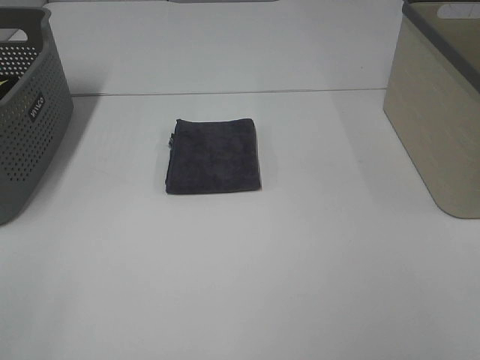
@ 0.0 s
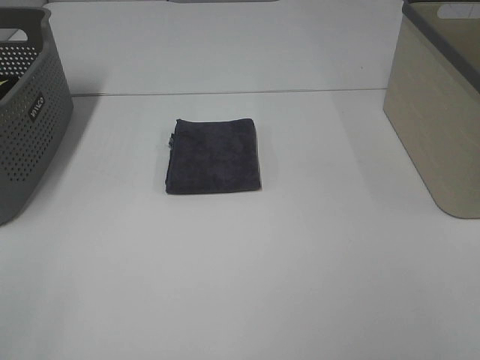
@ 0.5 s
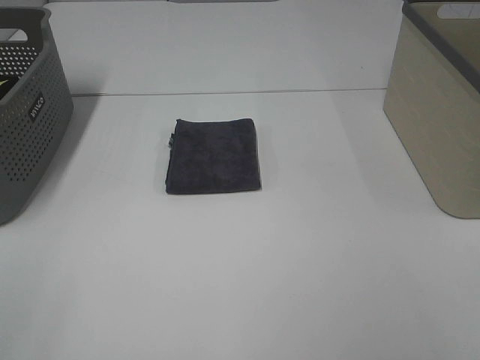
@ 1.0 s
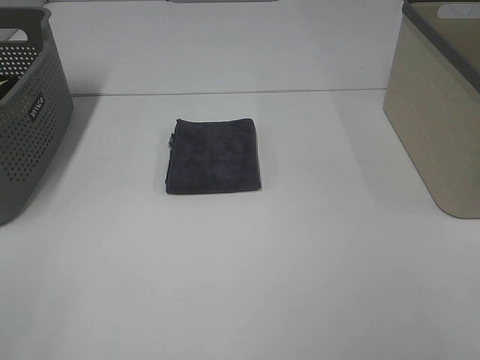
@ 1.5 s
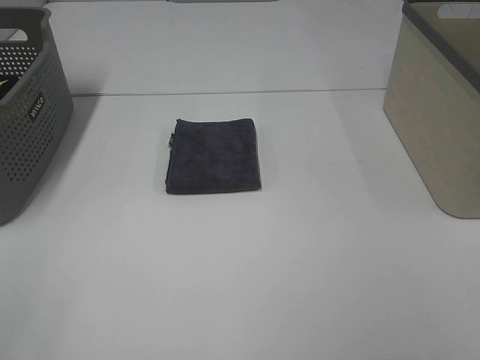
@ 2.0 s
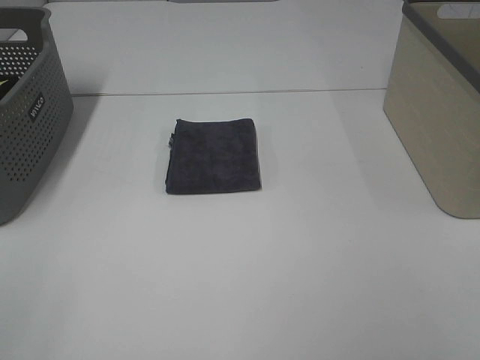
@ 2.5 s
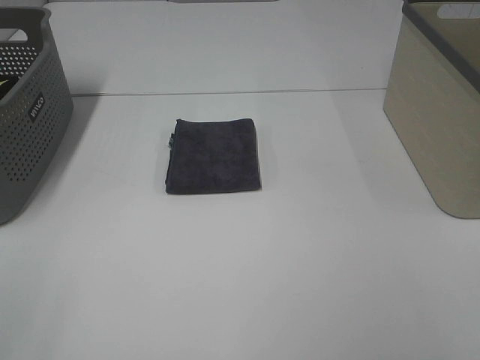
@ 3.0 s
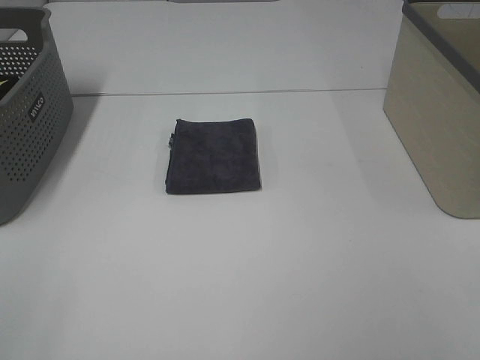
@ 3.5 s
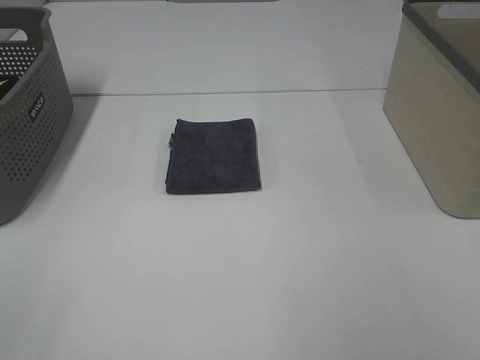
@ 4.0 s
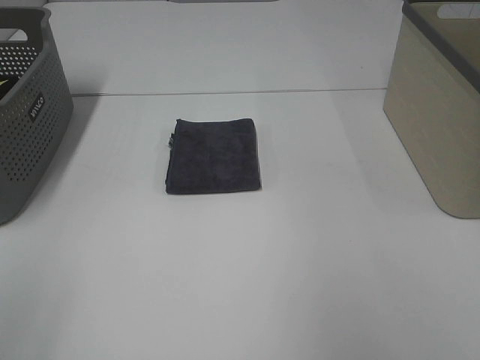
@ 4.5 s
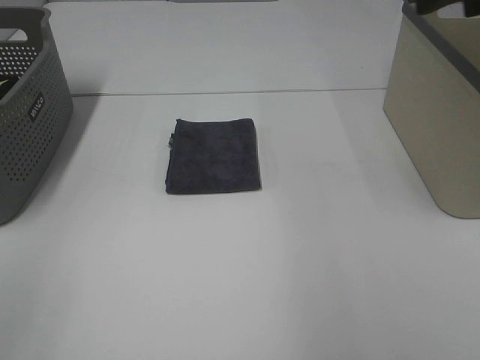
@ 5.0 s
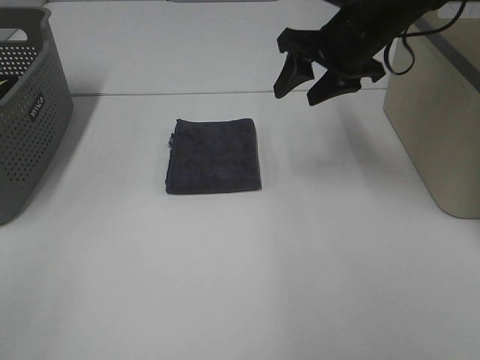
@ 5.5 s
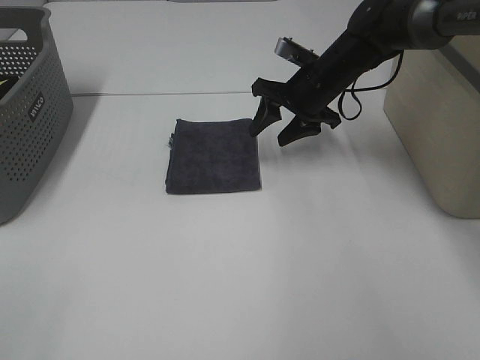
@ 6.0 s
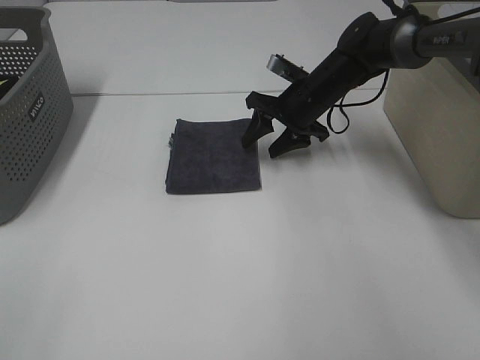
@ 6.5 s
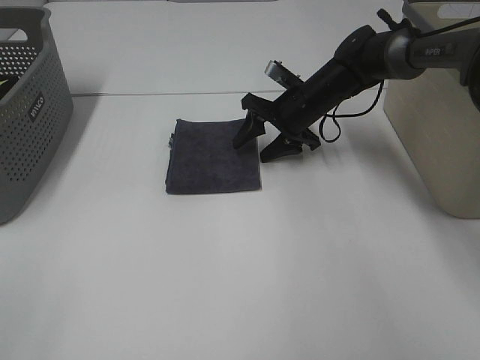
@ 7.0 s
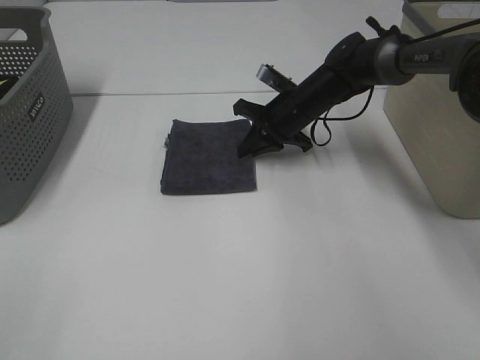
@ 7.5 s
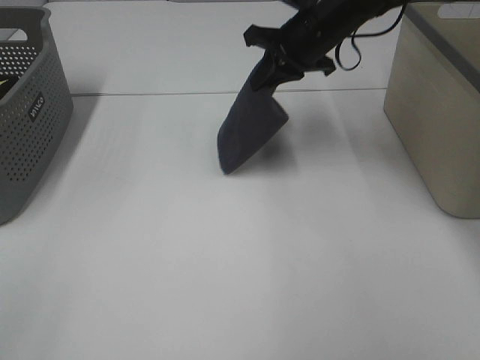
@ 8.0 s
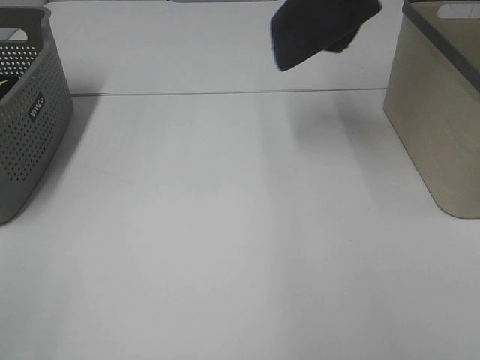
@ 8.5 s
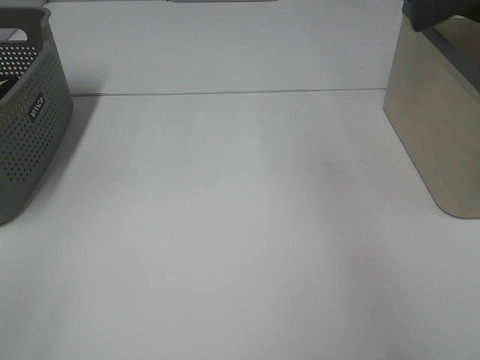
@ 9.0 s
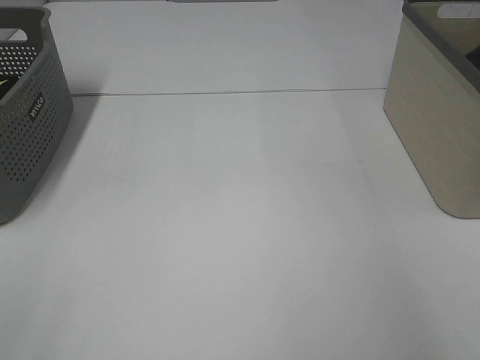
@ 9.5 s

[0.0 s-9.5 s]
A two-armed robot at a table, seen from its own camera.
Step, 0.0 to 7.0 s: Right hand: grab the folded grey towel.
0.0 to 2.0 s: Neither gripper changes place.
4.0 to 5.5 s: The right gripper moves forward, approximately 40 cm.
5.5 to 7.5 s: The right gripper travels downward and forward by about 15 cm, and closes.
7.5 to 9.5 s: The right gripper heads to the right and upward, covering roughly 35 cm.

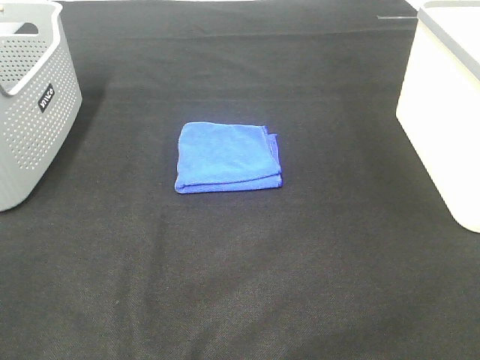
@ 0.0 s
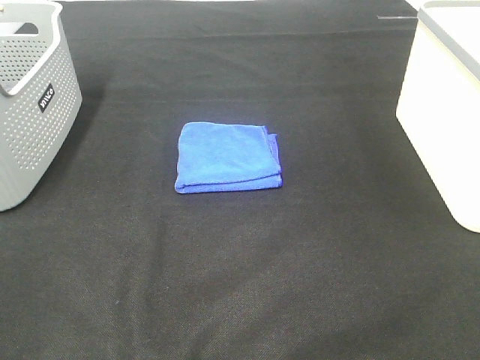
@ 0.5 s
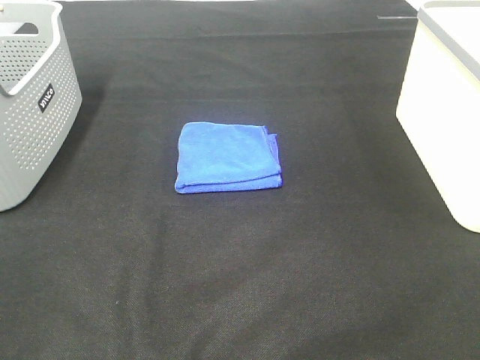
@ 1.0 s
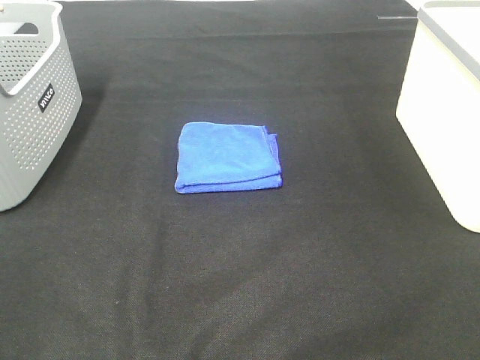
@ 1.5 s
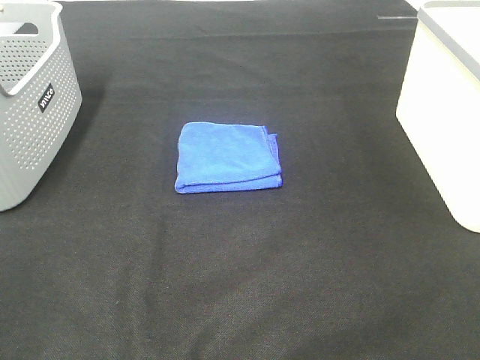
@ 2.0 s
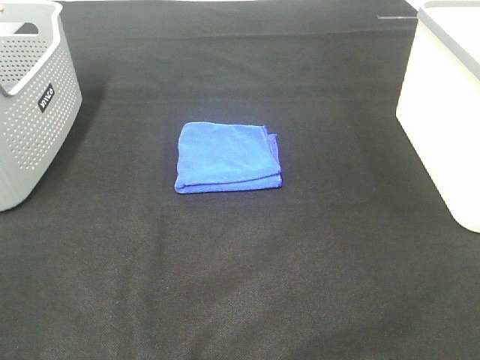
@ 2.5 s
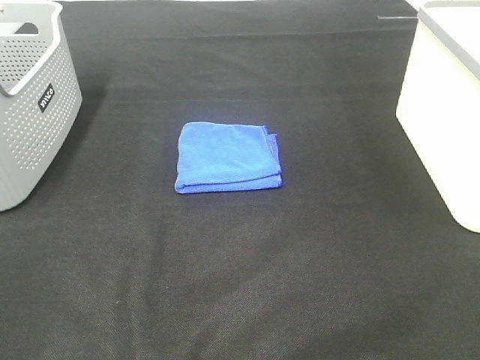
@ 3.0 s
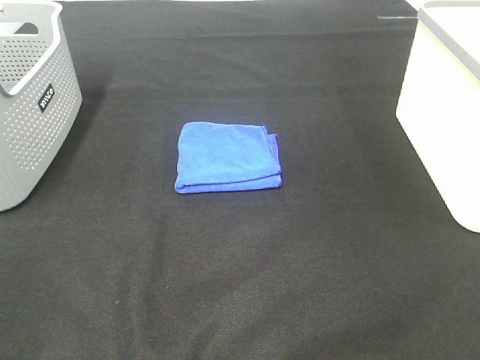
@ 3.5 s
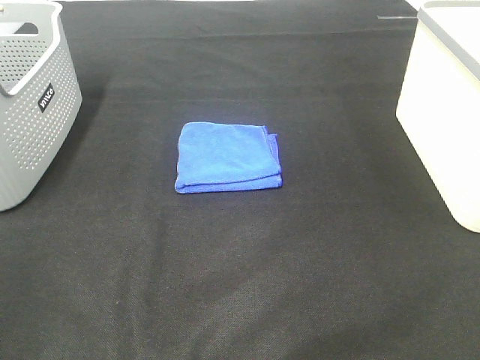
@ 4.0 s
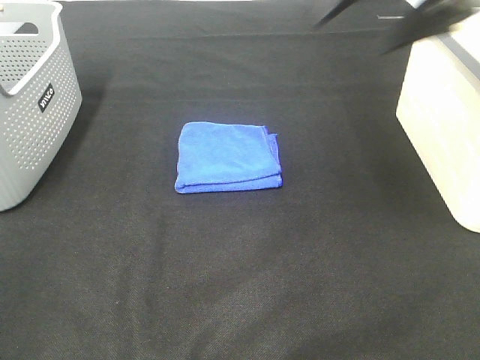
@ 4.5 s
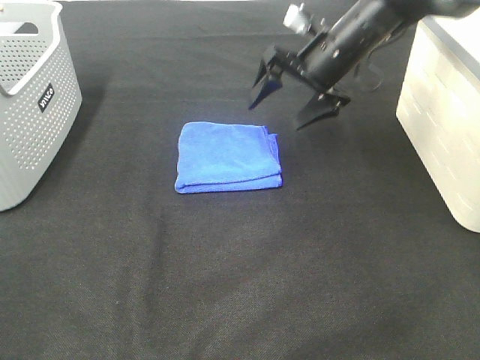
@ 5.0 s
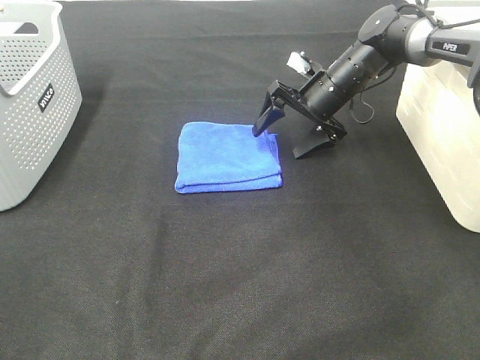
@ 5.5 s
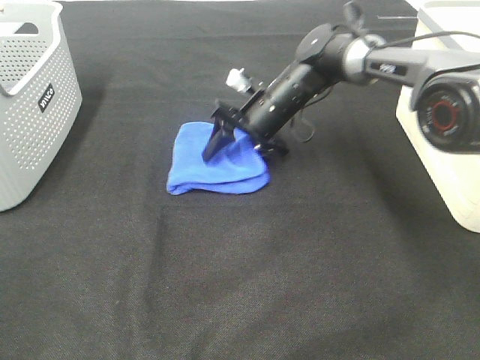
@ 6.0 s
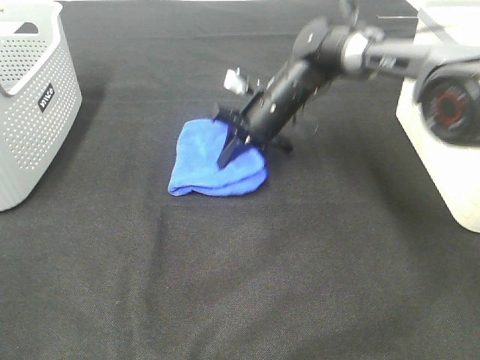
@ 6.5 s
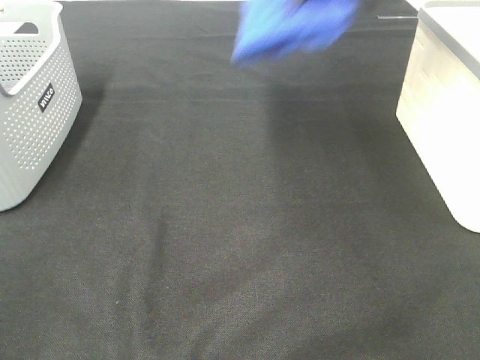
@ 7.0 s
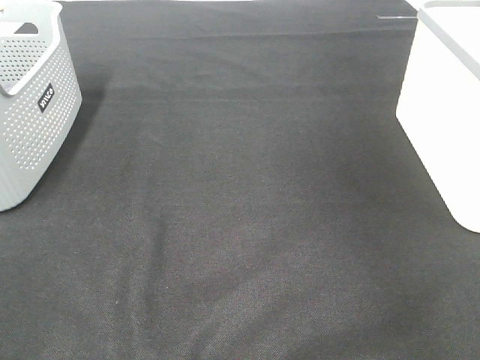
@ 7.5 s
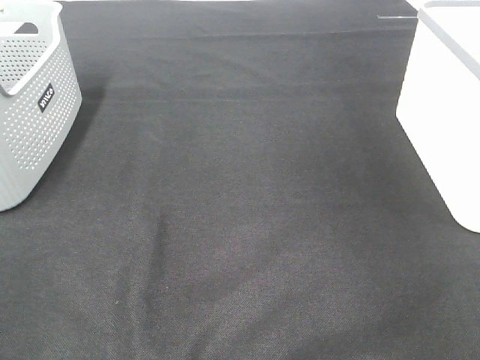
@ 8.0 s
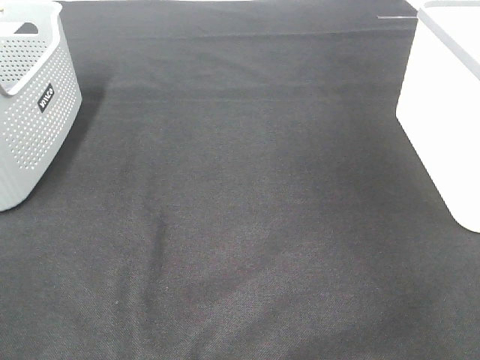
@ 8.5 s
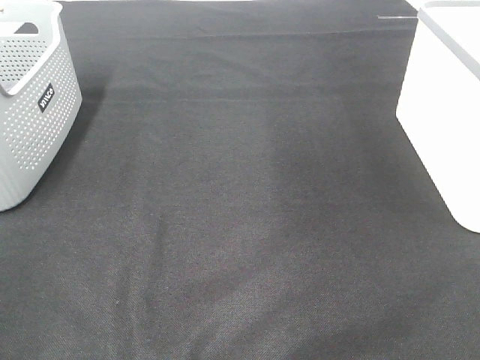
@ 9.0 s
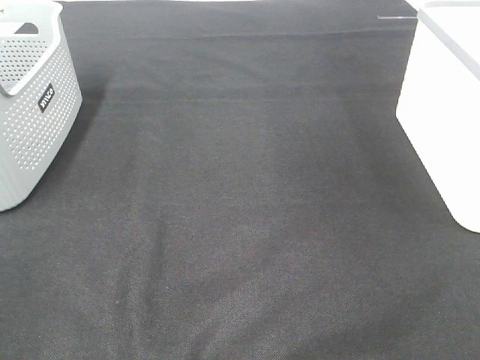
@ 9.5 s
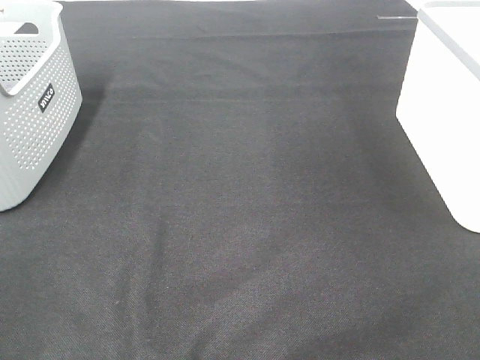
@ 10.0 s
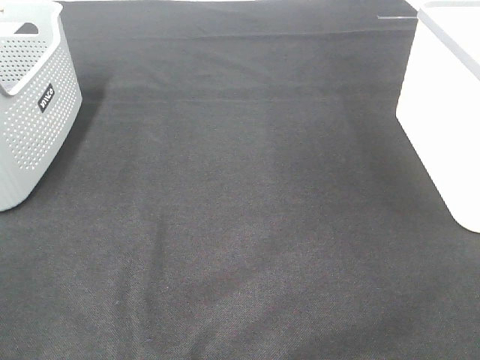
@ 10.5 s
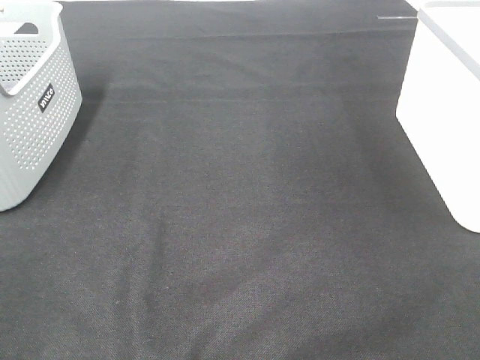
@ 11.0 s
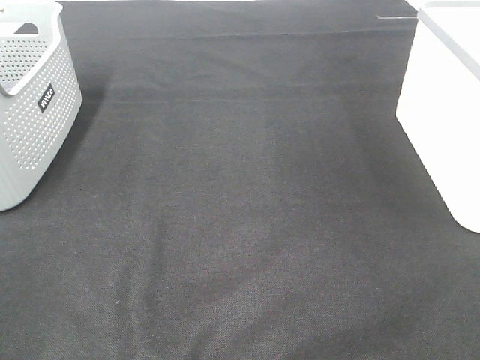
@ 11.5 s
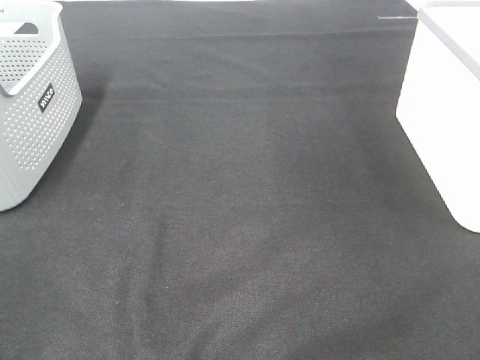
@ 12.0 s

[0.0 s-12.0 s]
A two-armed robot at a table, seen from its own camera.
Step, 0.0 to 6.0 s: Right hand: grab the folded blue towel.
Step, 6.5 to 8.0 s: Right hand: place the blue towel in right basket.
0.0 to 2.0 s: The two grippers keep their place.
4.0 to 6.0 s: The right gripper travels downward, forward and to the left by about 50 cm, and closes up.
6.0 to 8.0 s: The right gripper goes approximately 40 cm to the right and upward, and closes, then opens again.
10.0 to 12.0 s: Both grippers stay about where they are.

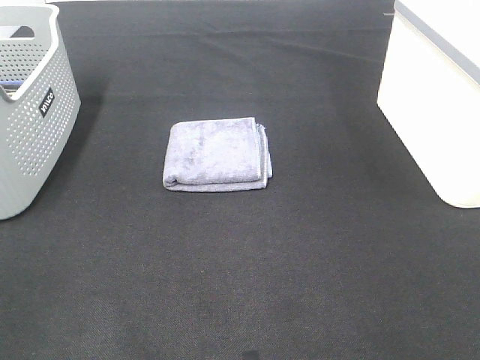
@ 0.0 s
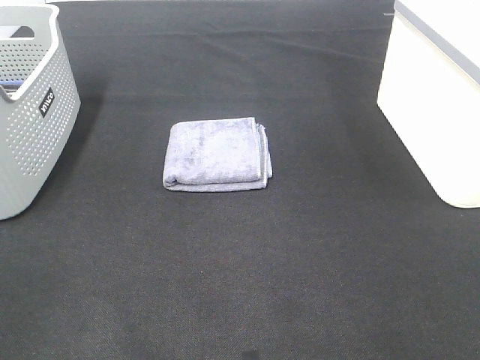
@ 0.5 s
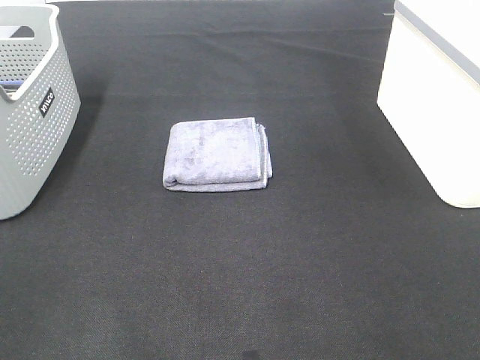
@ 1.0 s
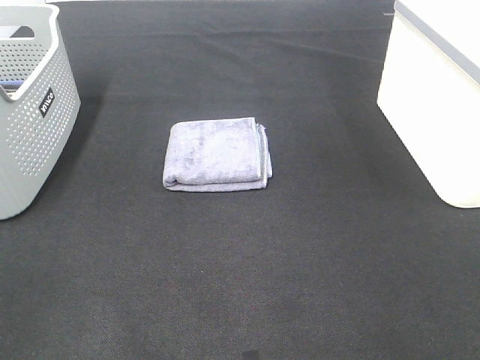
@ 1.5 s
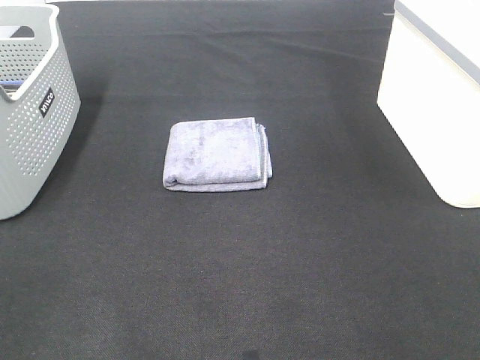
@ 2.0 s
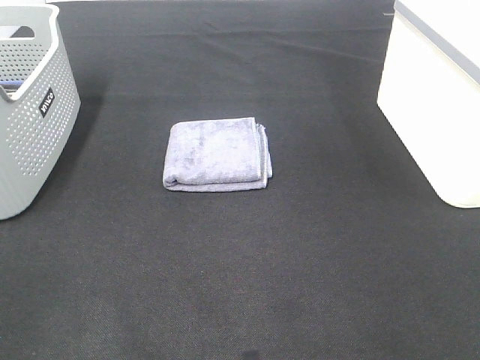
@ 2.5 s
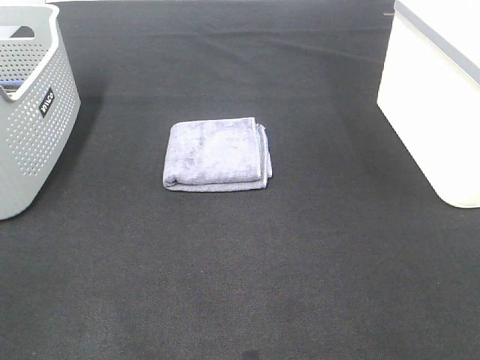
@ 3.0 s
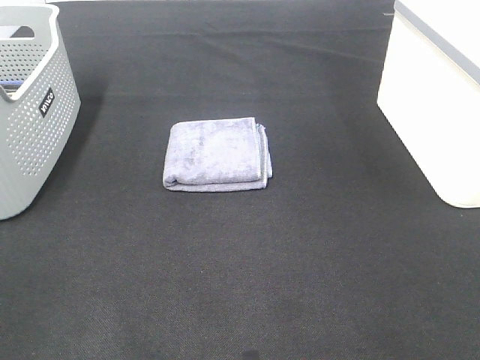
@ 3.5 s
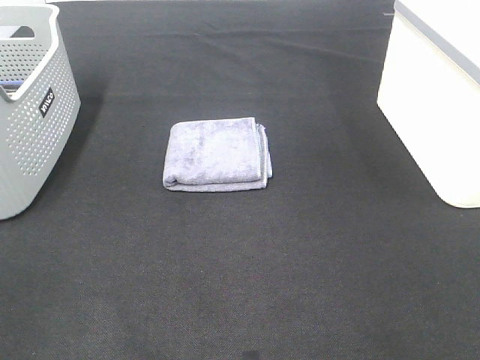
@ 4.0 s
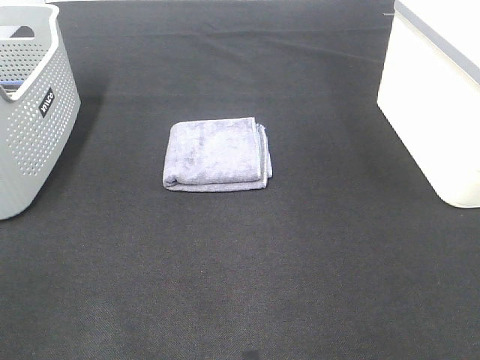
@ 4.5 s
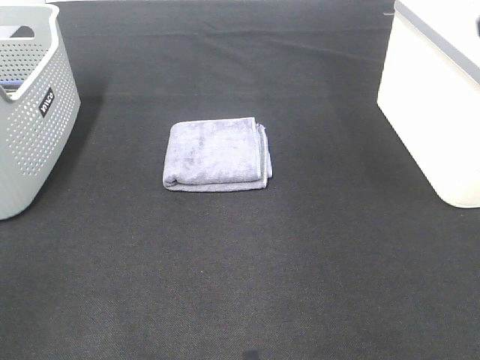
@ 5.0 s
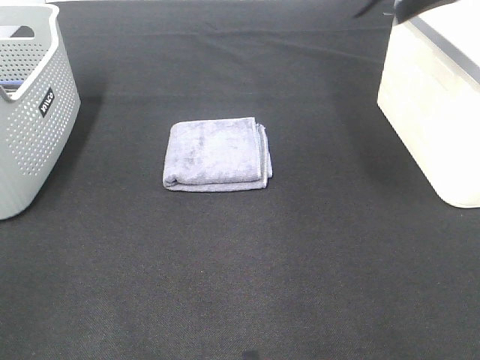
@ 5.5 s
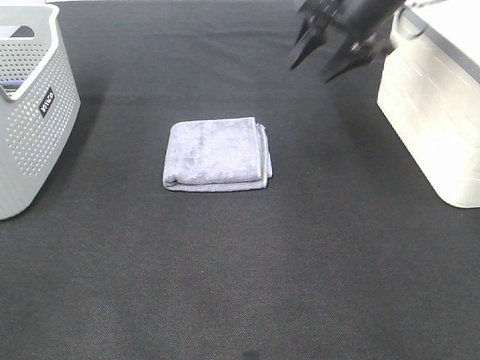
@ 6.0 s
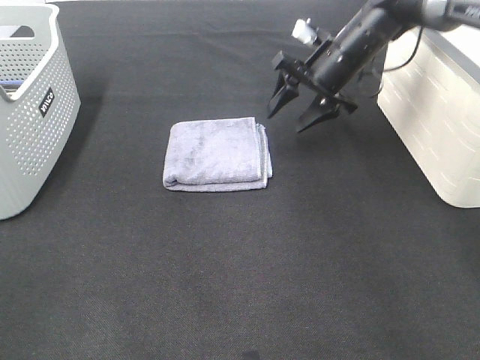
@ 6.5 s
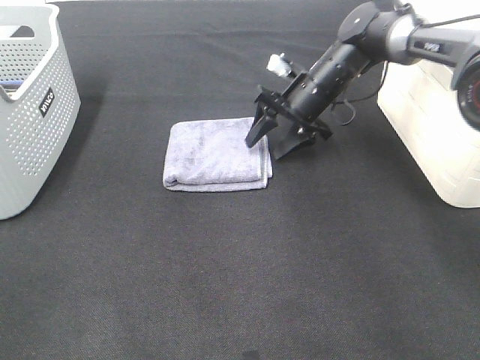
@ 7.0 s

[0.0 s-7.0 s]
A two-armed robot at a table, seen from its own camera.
0.0 to 3.5 s: Neither gripper changes place.
5.0 to 7.0 s: The right gripper heads downward, forward and to the left, covering some 40 cm.
